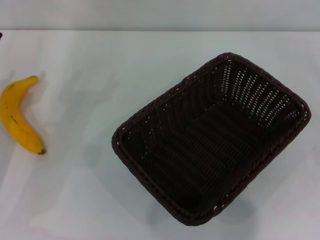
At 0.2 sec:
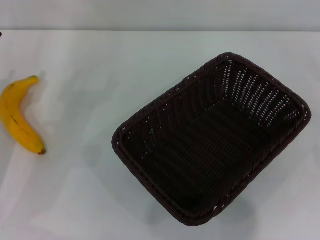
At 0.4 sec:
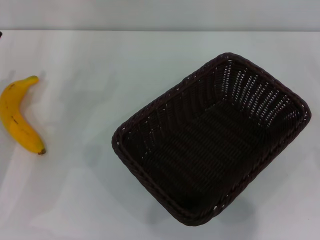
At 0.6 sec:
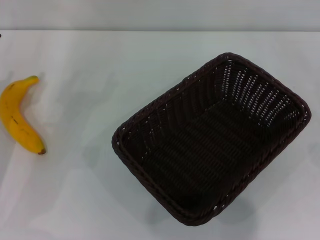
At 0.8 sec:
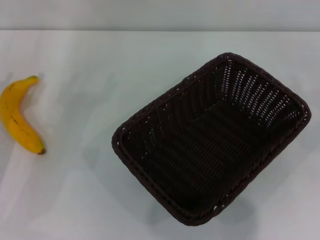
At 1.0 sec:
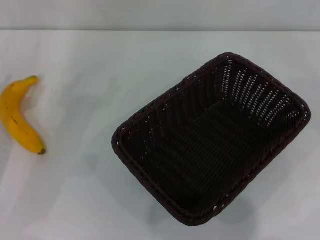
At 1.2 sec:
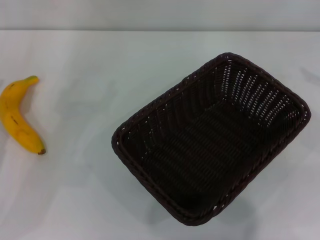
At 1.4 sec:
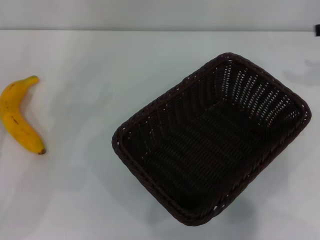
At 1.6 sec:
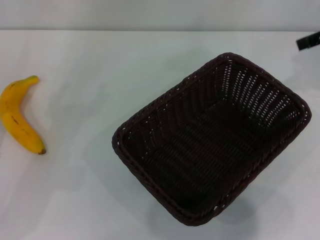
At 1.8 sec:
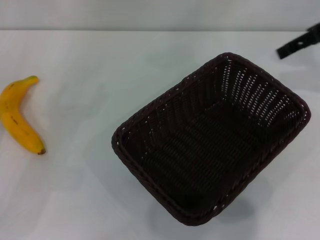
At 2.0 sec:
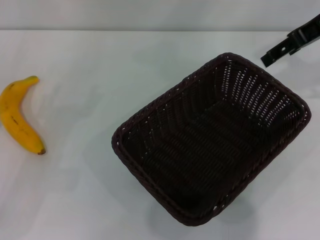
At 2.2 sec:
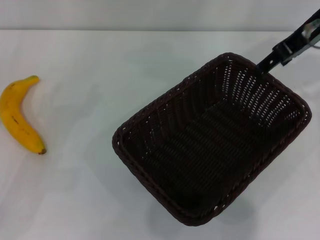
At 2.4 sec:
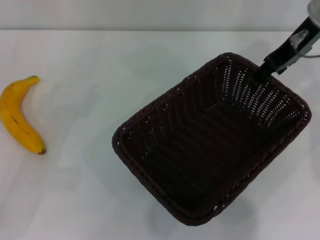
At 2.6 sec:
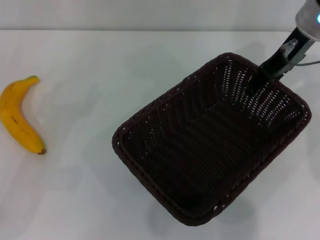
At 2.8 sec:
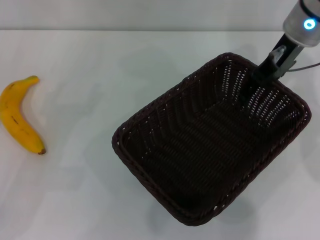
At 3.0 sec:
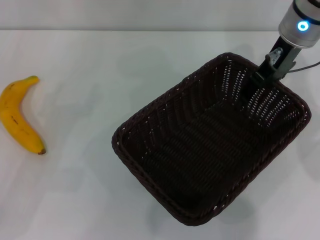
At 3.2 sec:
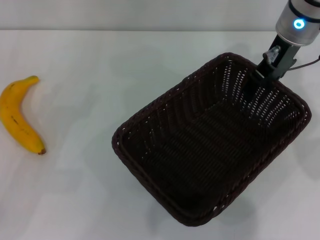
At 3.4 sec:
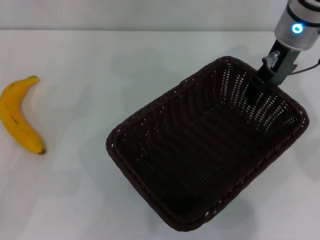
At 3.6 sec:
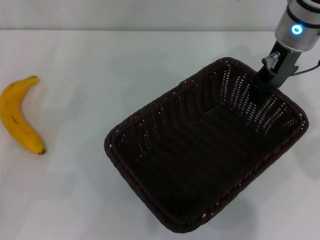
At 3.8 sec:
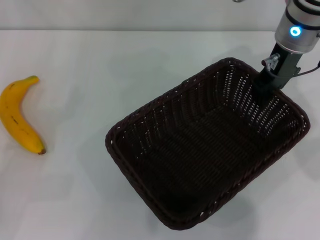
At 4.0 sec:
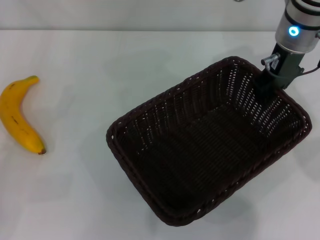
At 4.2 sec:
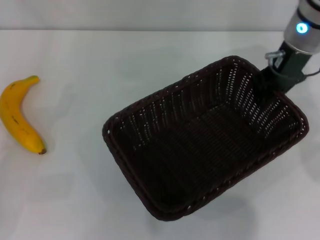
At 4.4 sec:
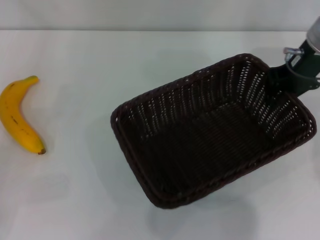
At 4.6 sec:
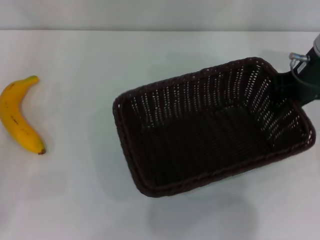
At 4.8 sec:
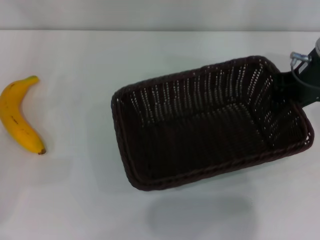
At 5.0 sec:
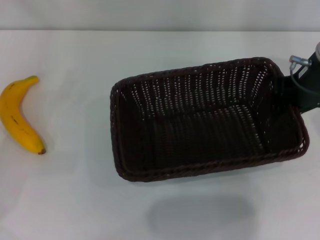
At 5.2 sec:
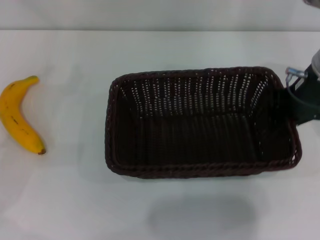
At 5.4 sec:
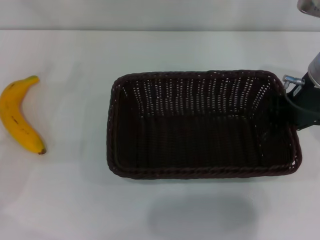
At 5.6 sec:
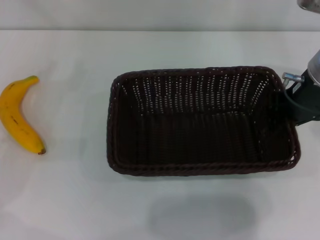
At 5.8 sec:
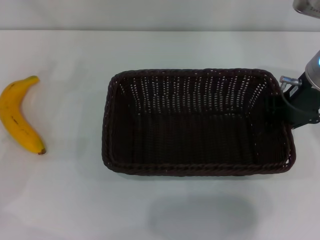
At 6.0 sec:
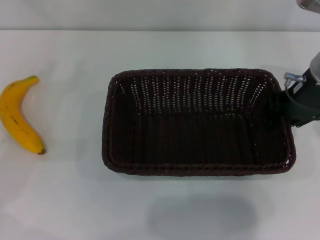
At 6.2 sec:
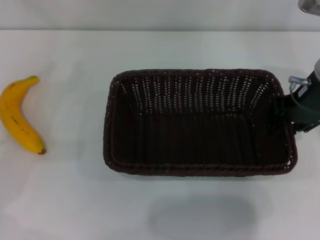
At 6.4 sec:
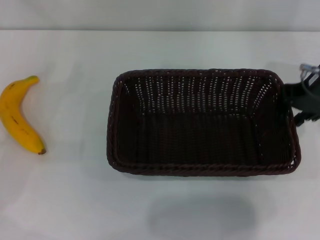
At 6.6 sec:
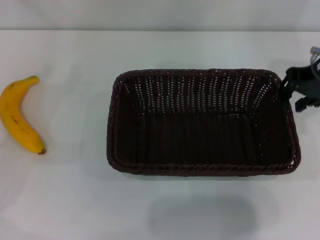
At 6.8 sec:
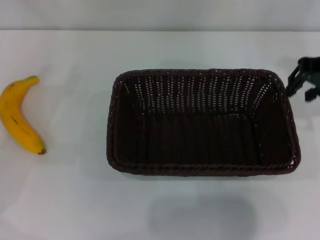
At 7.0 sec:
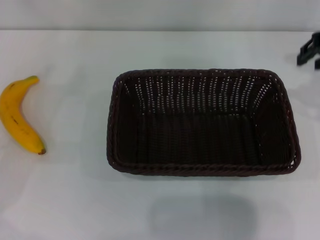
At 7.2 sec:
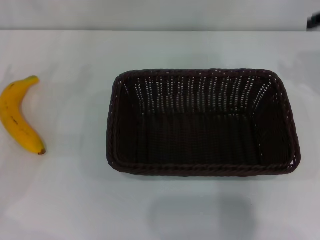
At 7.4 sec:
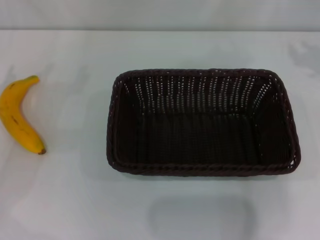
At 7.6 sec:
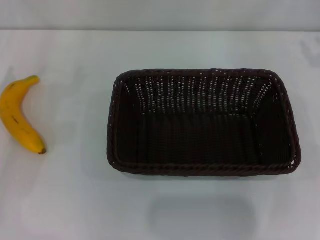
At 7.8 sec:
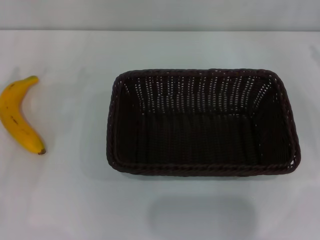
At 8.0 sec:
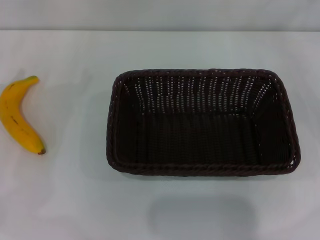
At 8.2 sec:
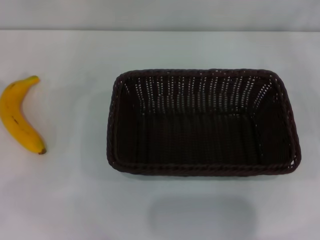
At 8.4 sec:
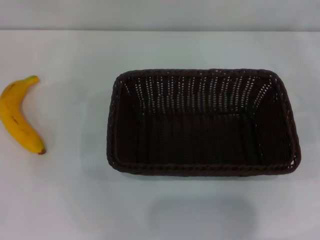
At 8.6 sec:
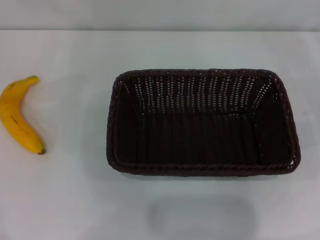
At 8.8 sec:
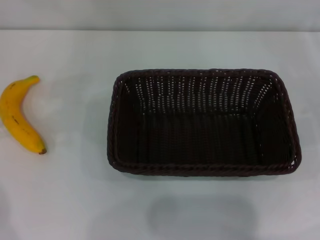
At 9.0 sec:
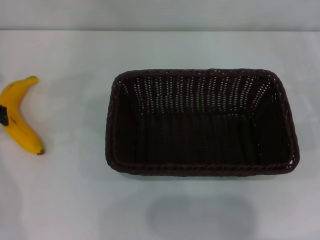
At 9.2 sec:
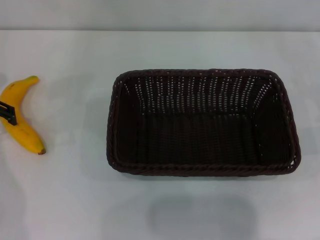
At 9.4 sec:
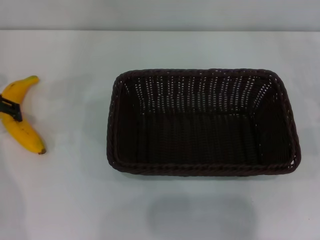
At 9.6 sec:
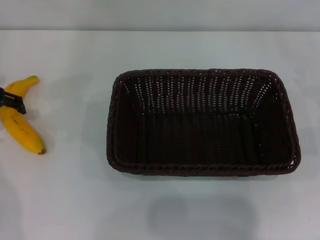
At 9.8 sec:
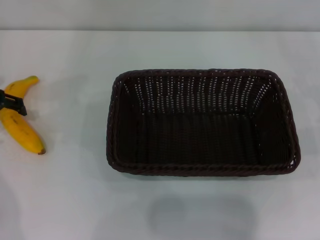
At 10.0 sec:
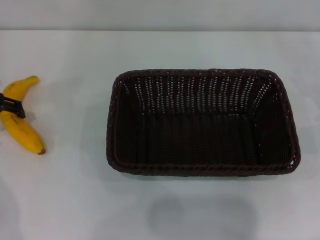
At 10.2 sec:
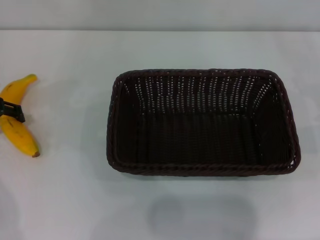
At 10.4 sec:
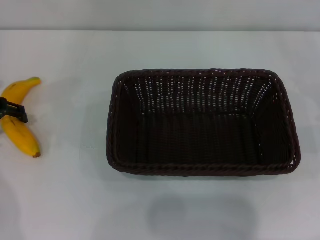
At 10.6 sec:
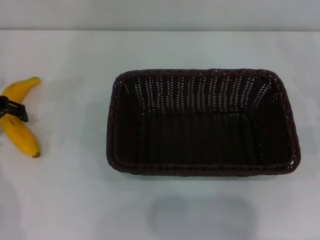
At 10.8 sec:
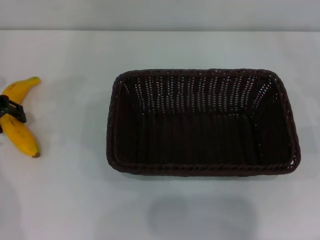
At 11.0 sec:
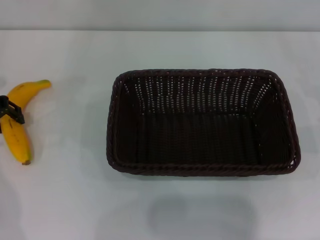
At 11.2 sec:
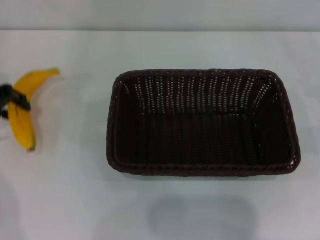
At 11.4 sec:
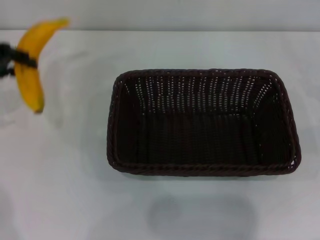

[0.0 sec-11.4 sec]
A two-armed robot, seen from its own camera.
Step, 0.0 sec to 4.6 sec: Pick up the dark basket with the right gripper.
Step, 4.8 sec to 6.8 sec: Place the dark basket in the center of view with the right gripper.
1.4 sec to 2.8 sec: The right gripper travels to the left by approximately 20 cm.
2.8 sec to 4.2 sec: The right gripper closes its fingers.
4.2 sec to 5.6 sec: The right gripper heads backward, covering approximately 5 cm. Meanwhile the left gripper is displaced forward by roughly 5 cm.
5.6 sec to 7.2 sec: The right gripper travels to the right and upward by some 10 cm.
8.6 sec to 10.0 sec: The left gripper shifts approximately 5 cm downward.
10.0 sec to 11.4 sec: The left gripper goes approximately 5 cm upward, and closes.

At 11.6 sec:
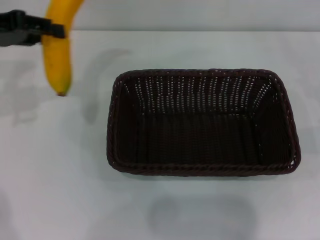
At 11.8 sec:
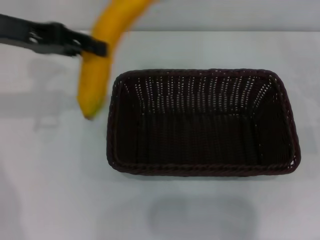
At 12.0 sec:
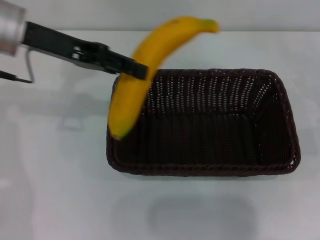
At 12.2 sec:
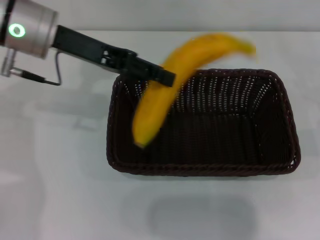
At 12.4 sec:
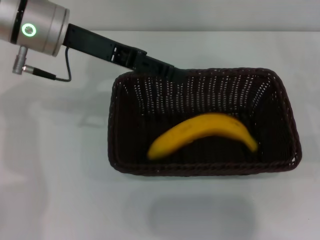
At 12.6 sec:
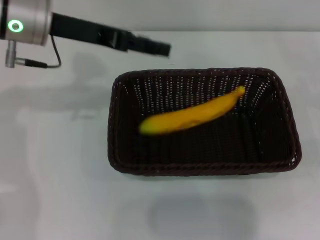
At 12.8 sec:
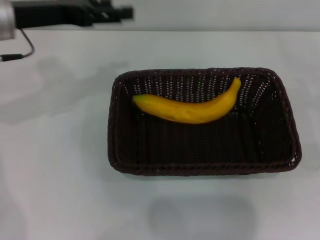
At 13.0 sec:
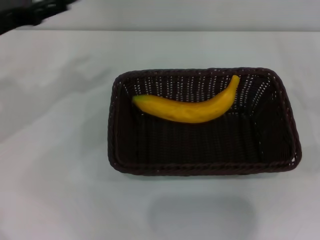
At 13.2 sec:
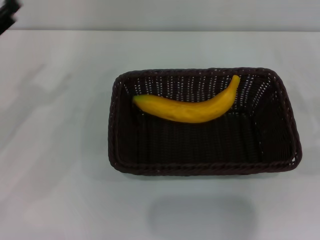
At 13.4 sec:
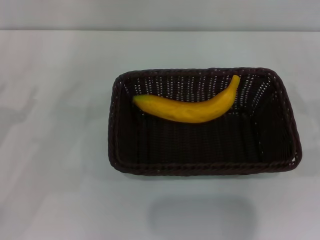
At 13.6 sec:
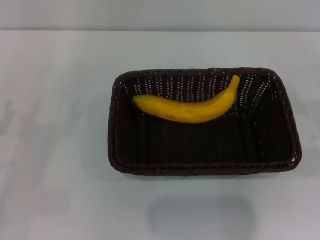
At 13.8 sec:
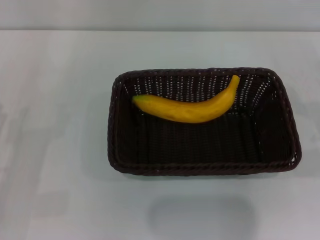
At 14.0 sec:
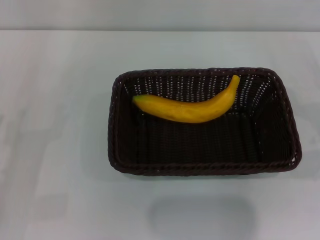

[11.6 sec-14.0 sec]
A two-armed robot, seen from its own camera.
Step, 11.6 sec to 12.6 sec: Place the banana into the dark basket with the left gripper.
11.6 sec to 12.8 sec: The left gripper travels to the right by roughly 5 cm, and opens.
12.8 sec to 14.0 sec: The left gripper is displaced downward, backward and to the left by some 25 cm.
